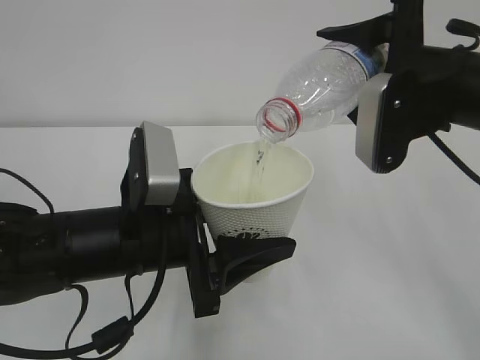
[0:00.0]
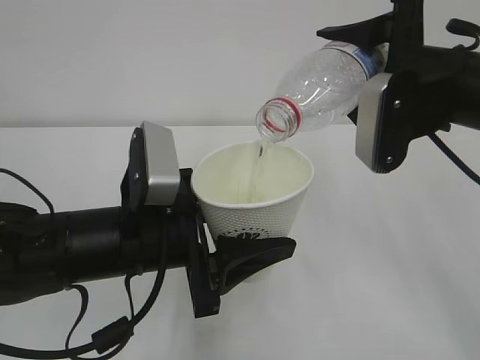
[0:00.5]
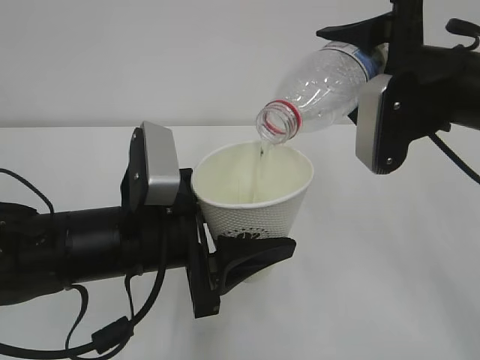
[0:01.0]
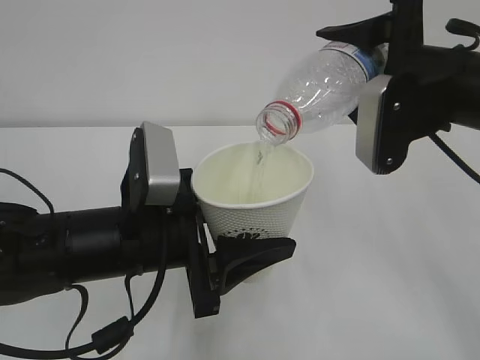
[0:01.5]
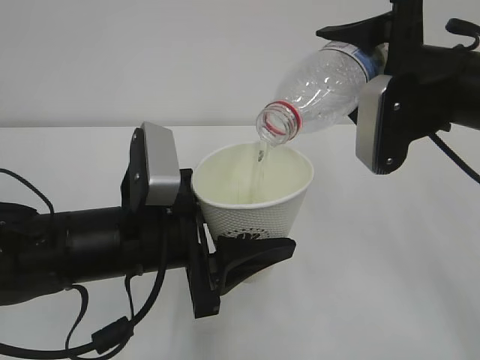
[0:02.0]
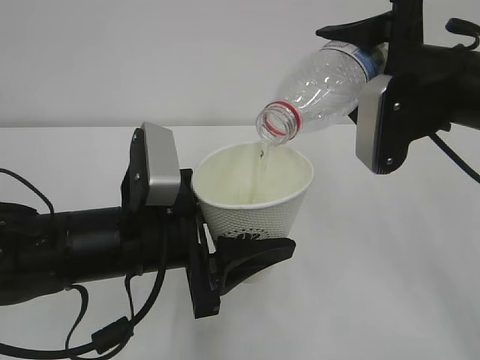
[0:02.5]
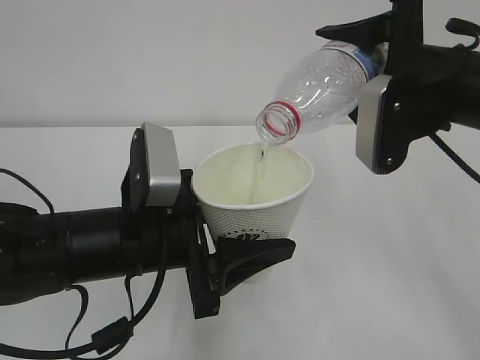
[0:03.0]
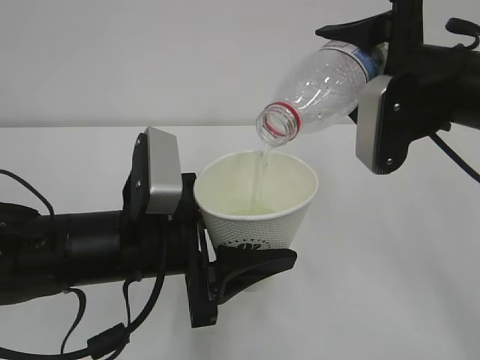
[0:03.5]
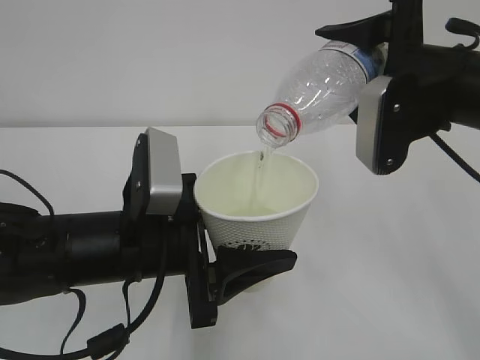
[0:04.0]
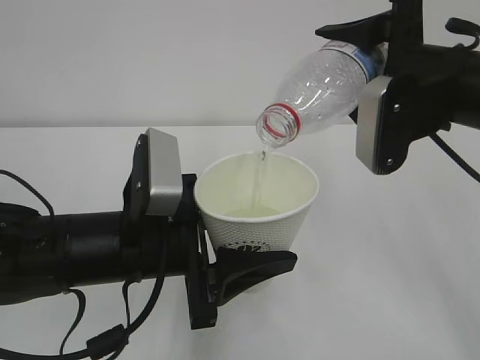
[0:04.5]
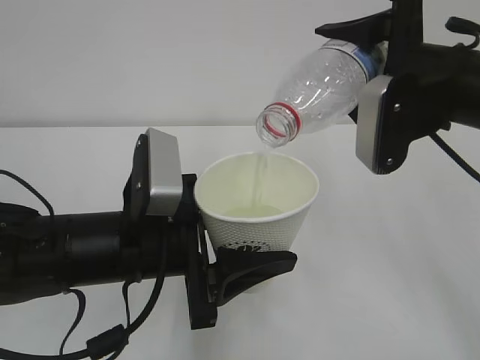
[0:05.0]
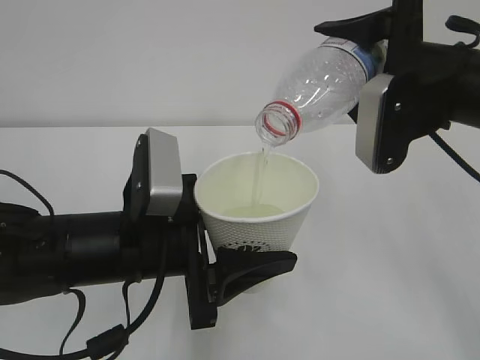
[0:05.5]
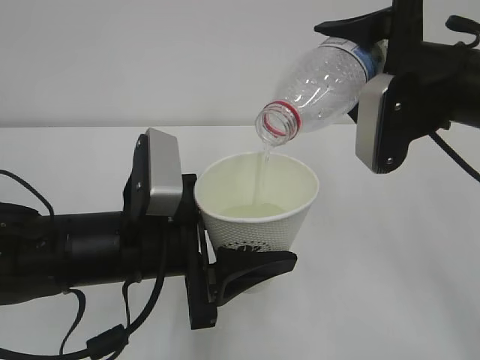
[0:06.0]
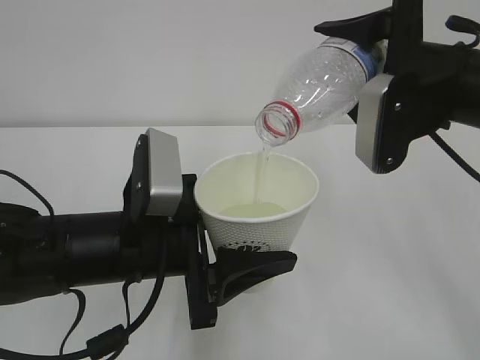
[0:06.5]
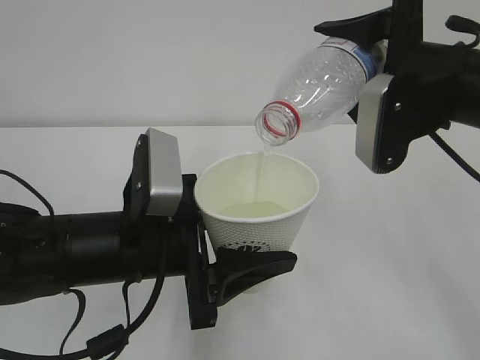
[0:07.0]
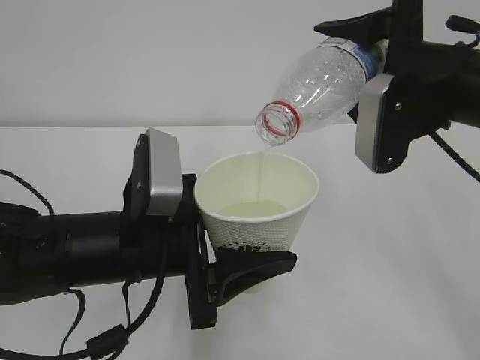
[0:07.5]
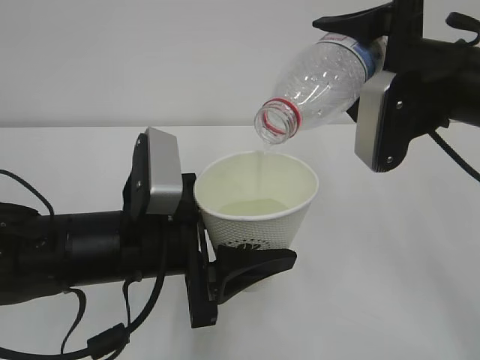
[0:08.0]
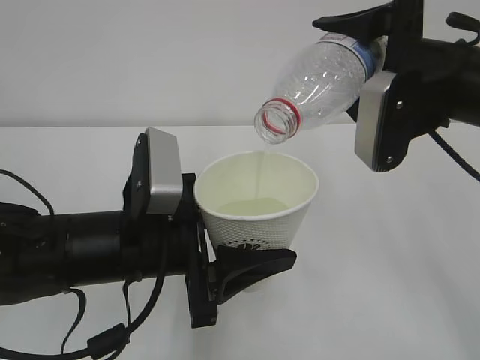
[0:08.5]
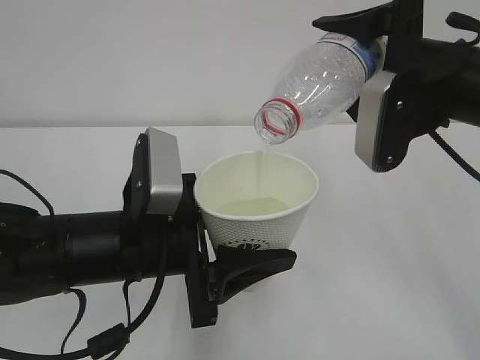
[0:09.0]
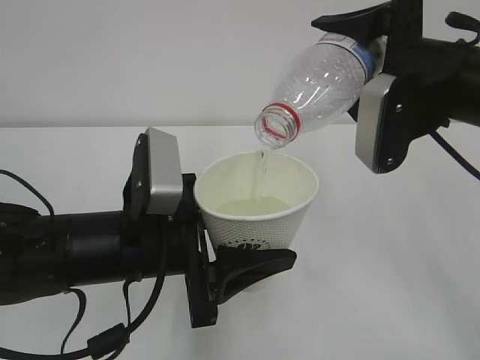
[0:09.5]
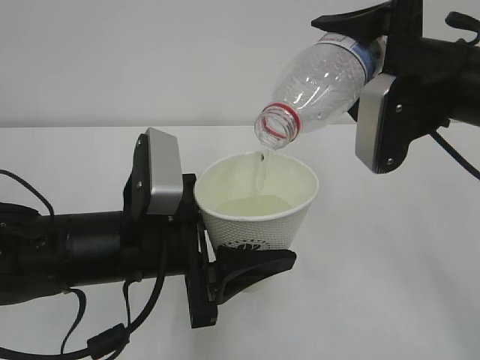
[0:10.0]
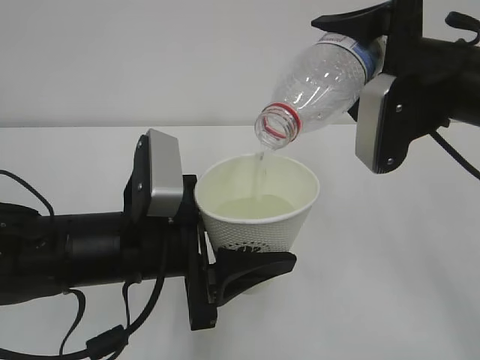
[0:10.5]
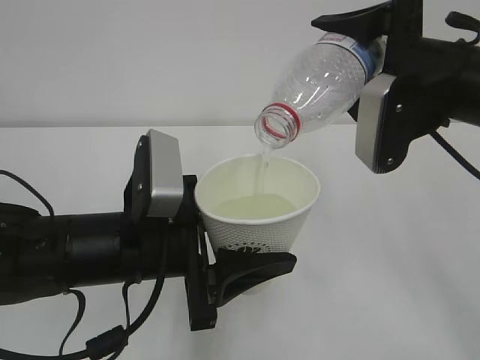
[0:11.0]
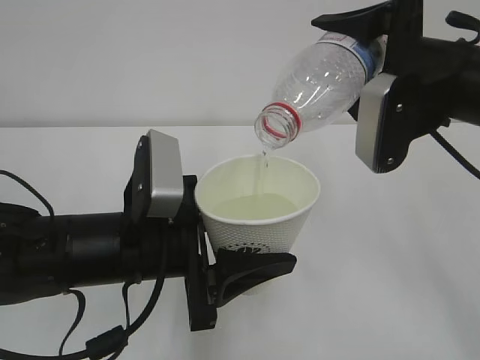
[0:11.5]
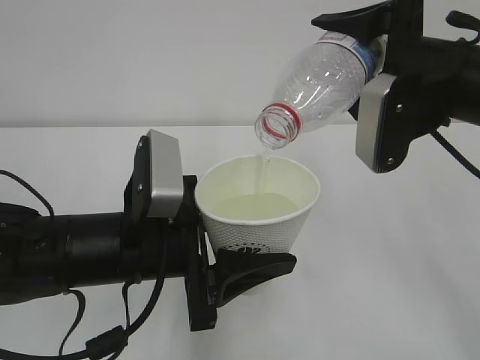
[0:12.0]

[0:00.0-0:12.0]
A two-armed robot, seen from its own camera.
0:00.0 to 0:08.0: Both grippers stay about where they are.
0:08.0 to 0:12.0: Both grippers stay about where they are.

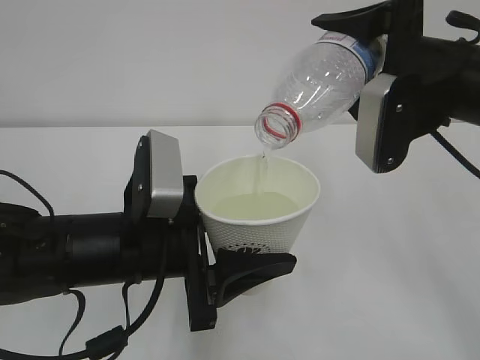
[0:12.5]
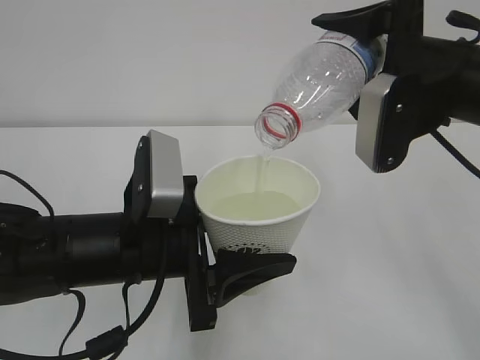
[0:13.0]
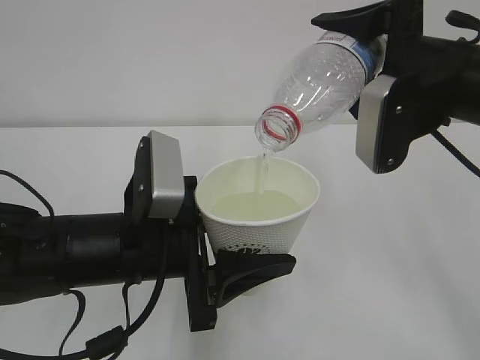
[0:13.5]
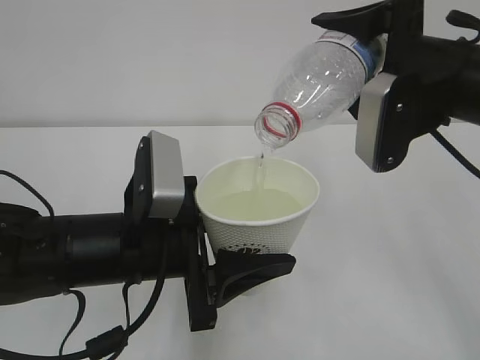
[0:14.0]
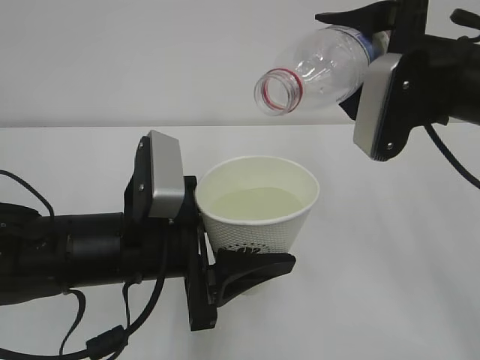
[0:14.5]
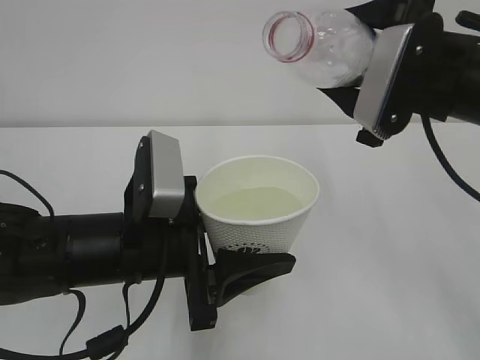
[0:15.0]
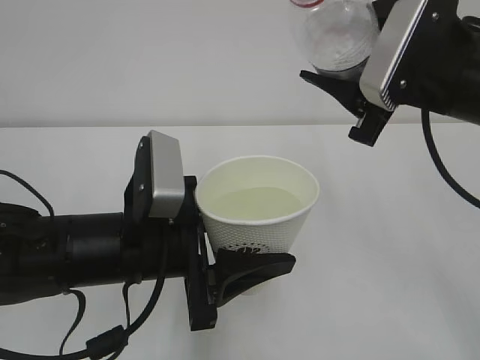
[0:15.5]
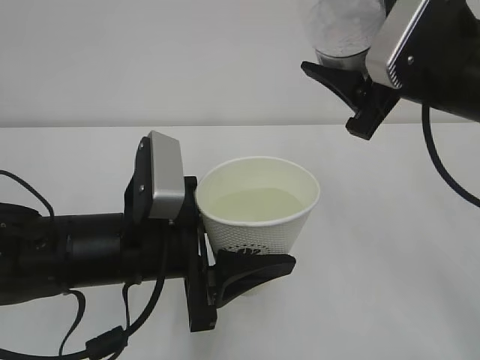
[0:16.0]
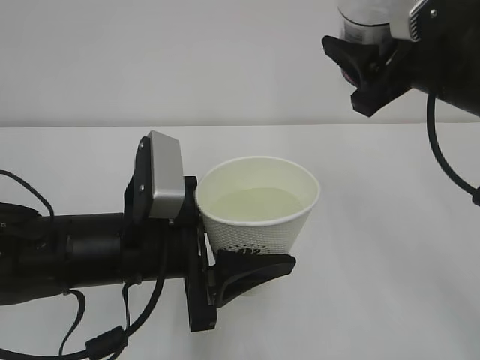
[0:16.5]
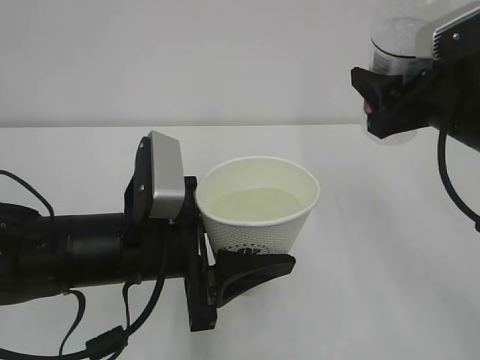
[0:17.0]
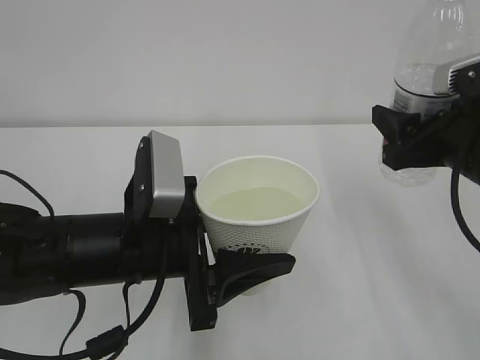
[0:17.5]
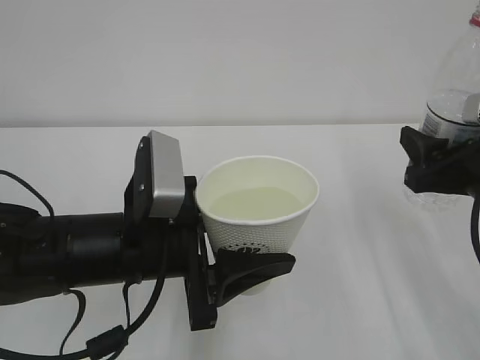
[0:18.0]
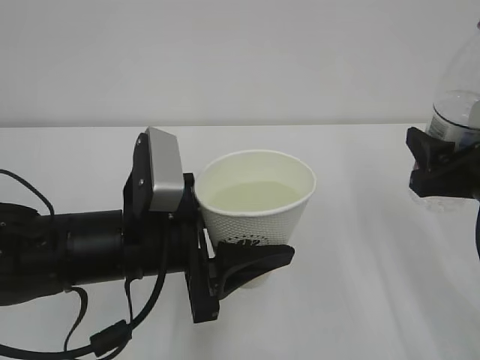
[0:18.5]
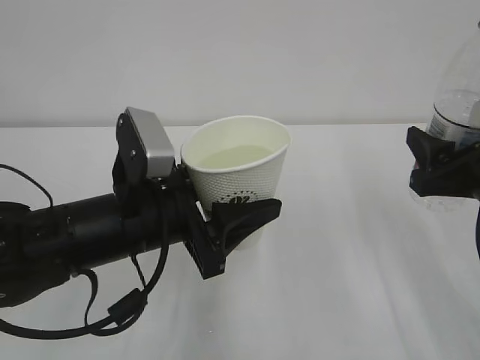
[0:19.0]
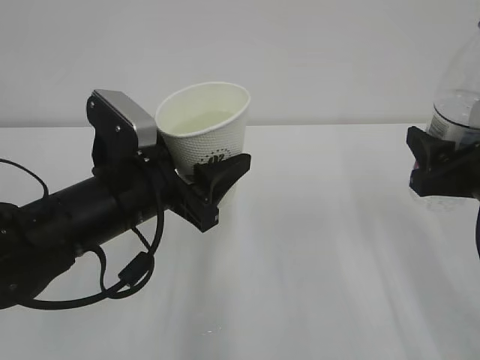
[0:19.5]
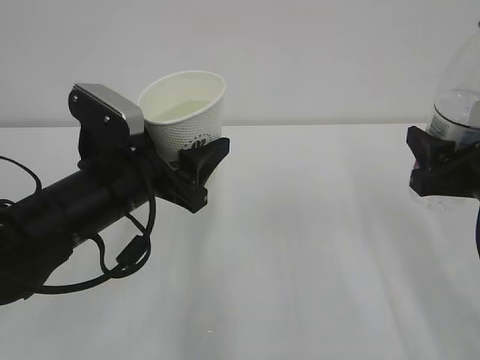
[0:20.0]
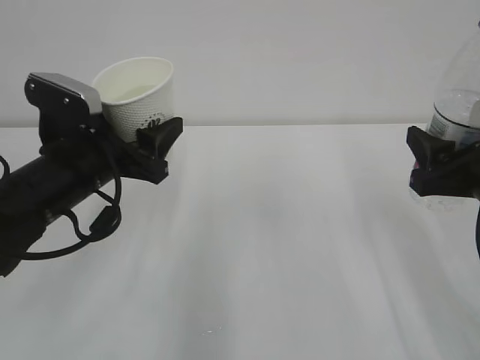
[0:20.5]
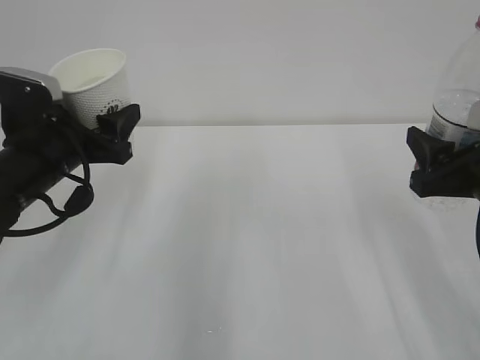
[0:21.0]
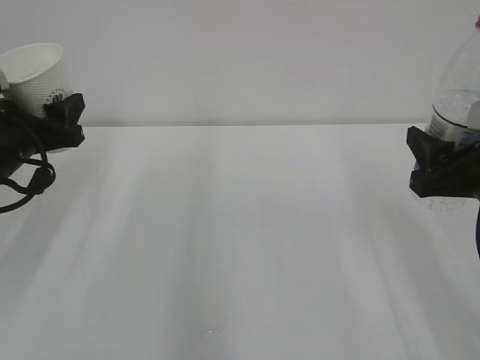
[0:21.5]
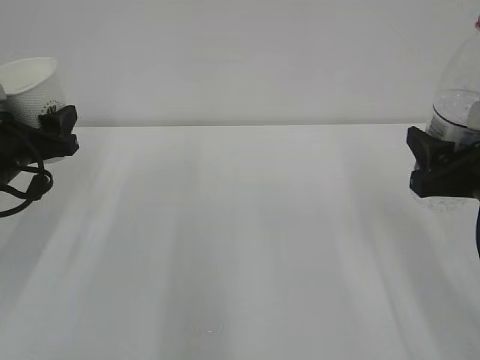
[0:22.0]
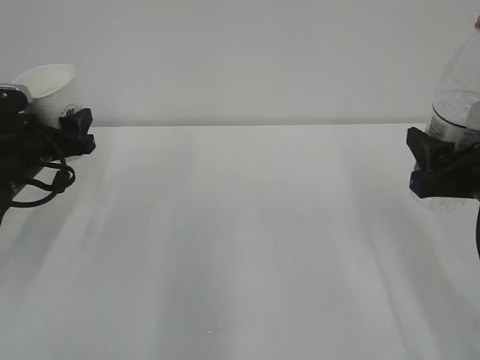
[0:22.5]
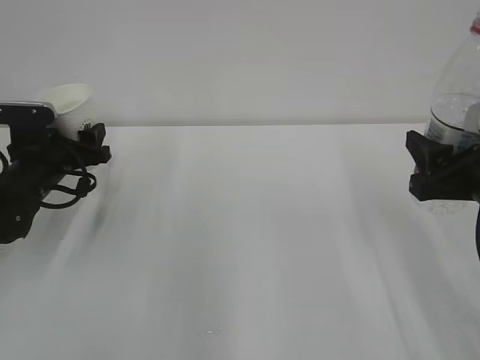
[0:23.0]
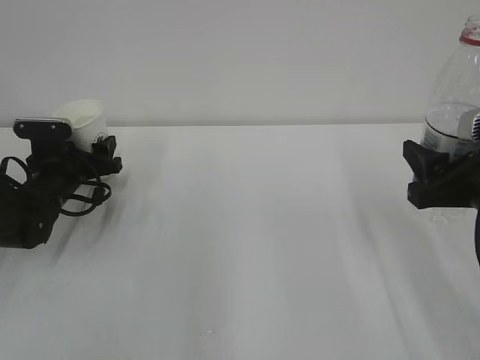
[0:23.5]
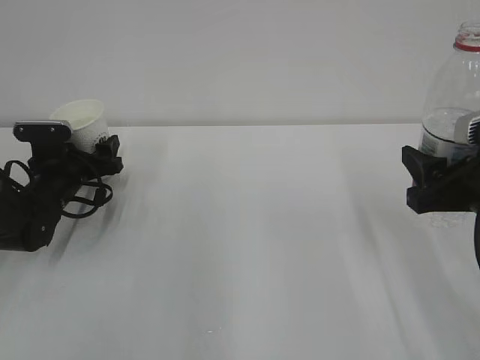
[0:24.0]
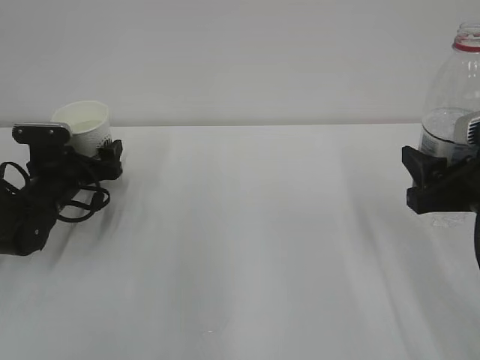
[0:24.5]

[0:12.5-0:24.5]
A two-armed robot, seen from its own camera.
0:12.5 to 0:14.5: The grippers move only a little.
0:16.5 to 0:18.5: The right gripper shifts approximately 10 cm downward, backward and to the right.
0:18.5 to 0:20.5: The left gripper travels to the left and forward by approximately 10 cm.
0:20.5 to 0:22.5: The left gripper is displaced to the left and forward by some 15 cm.
0:22.5 to 0:24.5: The left gripper moves downward, roughly 10 cm, and opens up.

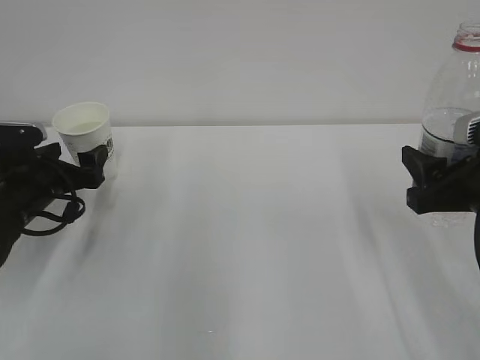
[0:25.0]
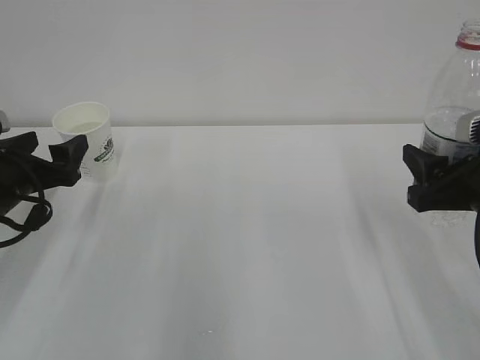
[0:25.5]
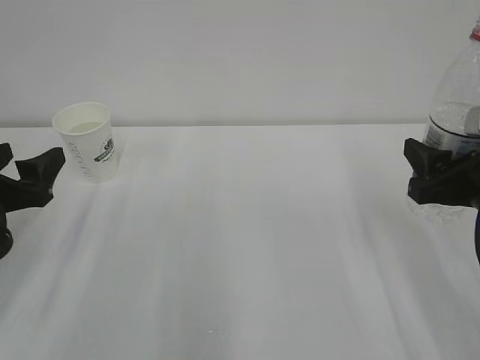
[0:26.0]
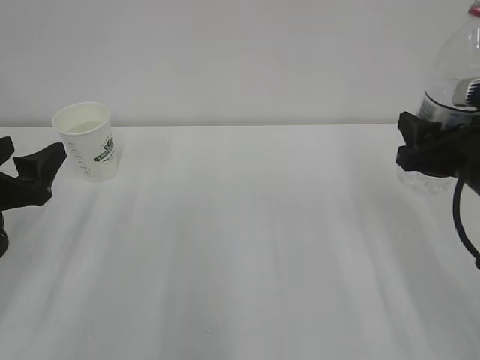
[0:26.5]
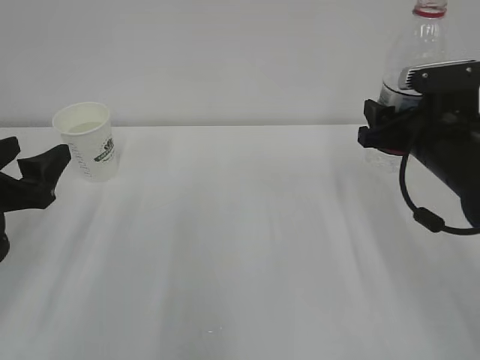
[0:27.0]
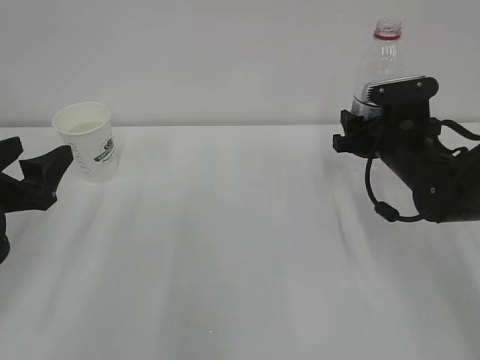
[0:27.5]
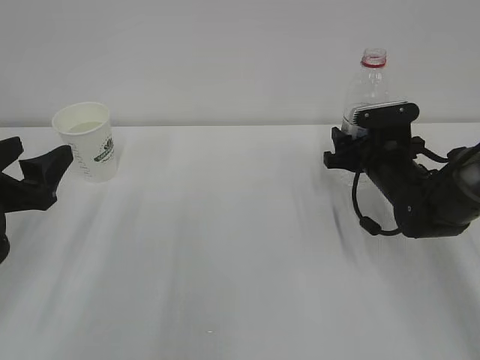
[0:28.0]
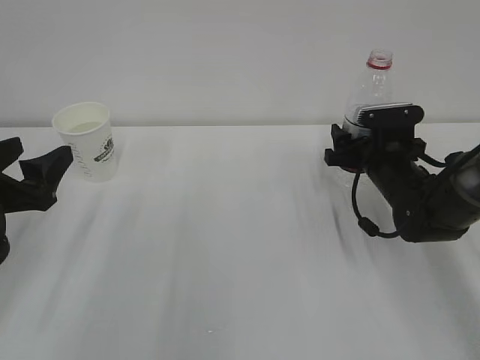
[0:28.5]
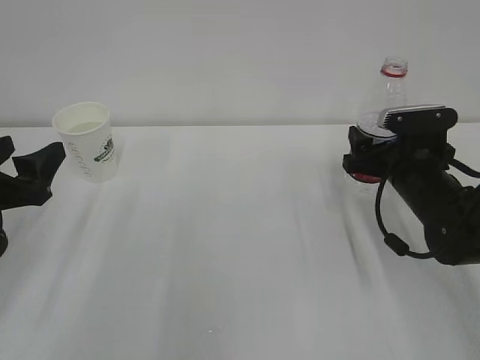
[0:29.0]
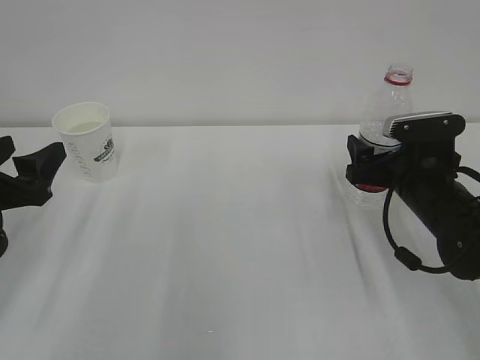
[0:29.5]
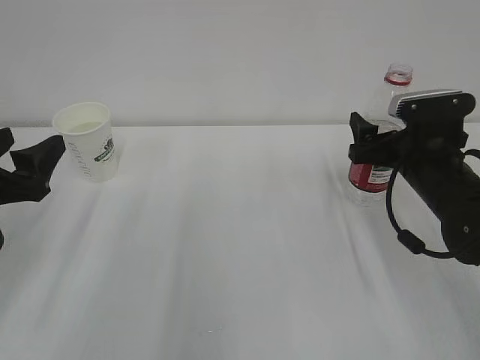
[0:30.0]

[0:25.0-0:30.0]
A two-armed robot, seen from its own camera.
0:25.0 to 0:27.5: The right gripper is displaced forward by roughly 15 cm, while the left gripper shifts roughly 15 cm backward and upward, and closes up.
0:27.5 to 0:30.0: The right gripper opens.